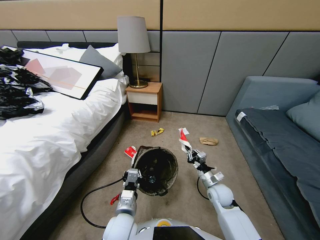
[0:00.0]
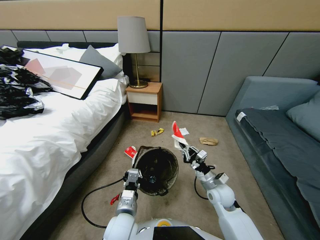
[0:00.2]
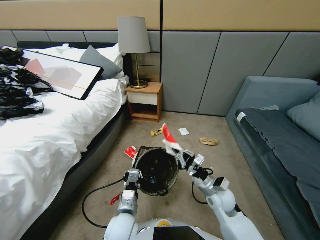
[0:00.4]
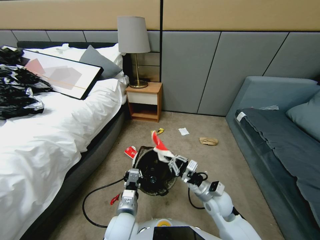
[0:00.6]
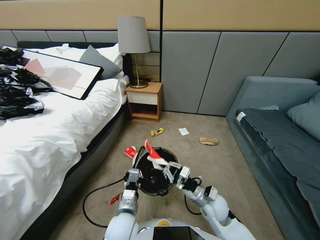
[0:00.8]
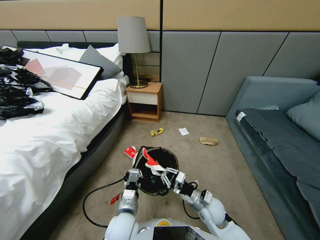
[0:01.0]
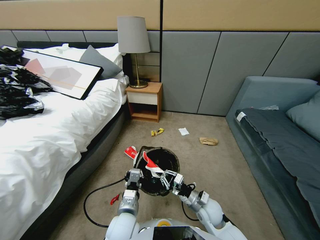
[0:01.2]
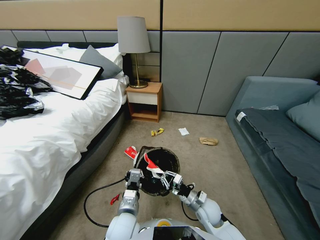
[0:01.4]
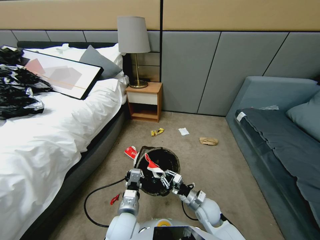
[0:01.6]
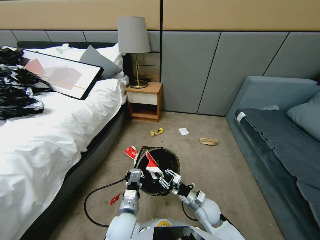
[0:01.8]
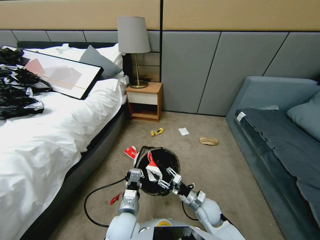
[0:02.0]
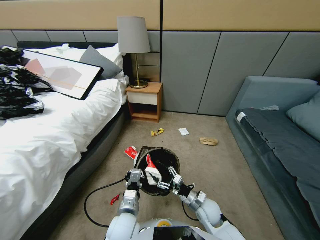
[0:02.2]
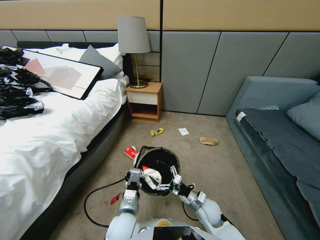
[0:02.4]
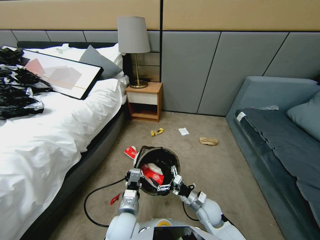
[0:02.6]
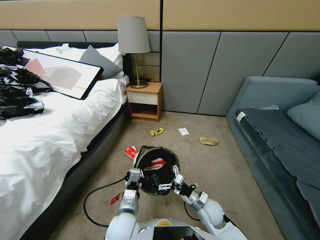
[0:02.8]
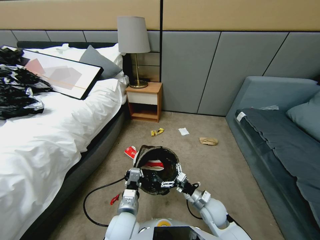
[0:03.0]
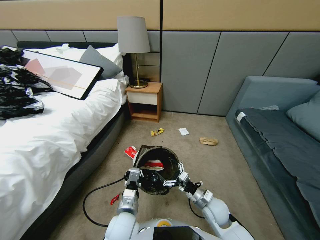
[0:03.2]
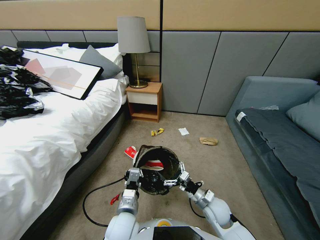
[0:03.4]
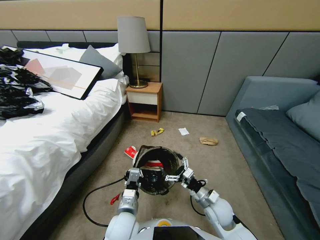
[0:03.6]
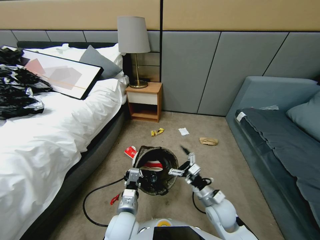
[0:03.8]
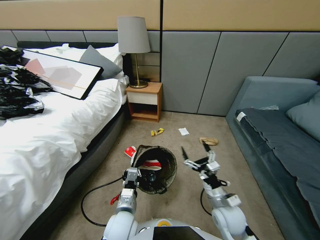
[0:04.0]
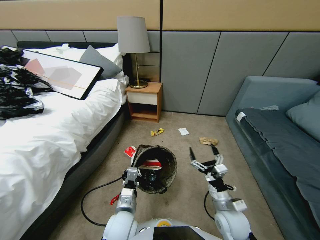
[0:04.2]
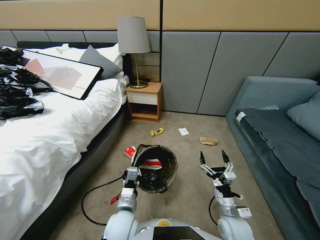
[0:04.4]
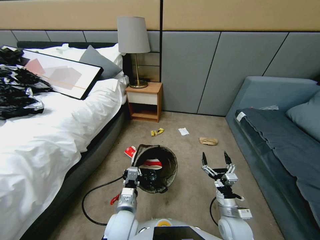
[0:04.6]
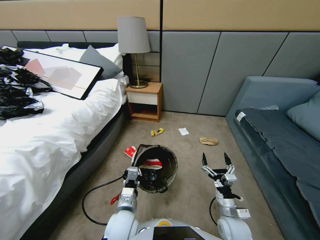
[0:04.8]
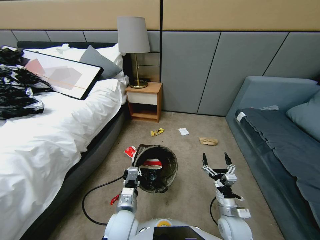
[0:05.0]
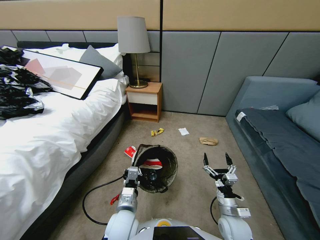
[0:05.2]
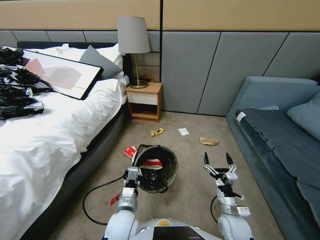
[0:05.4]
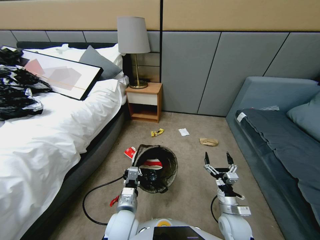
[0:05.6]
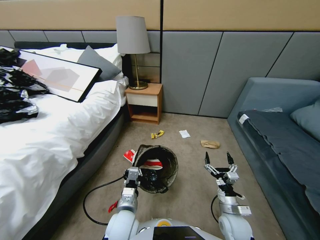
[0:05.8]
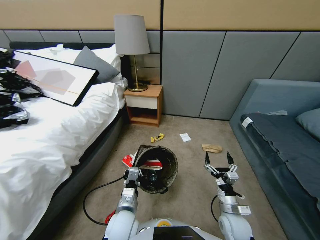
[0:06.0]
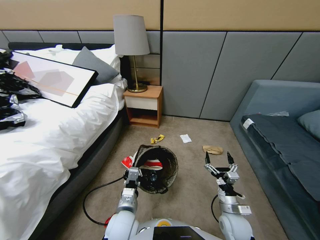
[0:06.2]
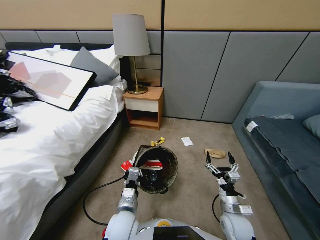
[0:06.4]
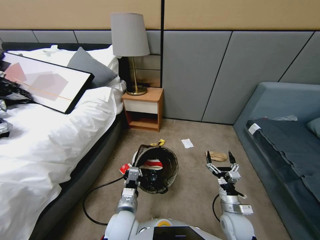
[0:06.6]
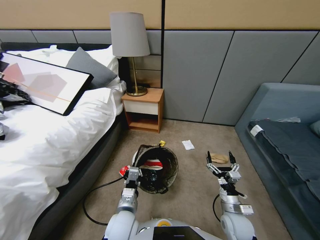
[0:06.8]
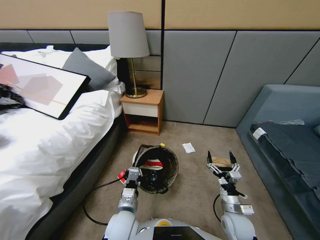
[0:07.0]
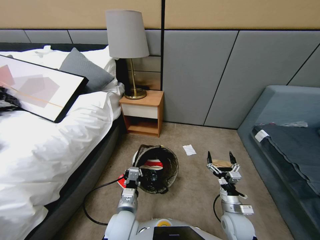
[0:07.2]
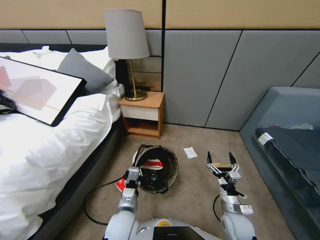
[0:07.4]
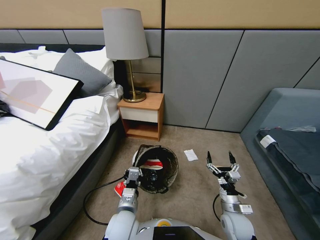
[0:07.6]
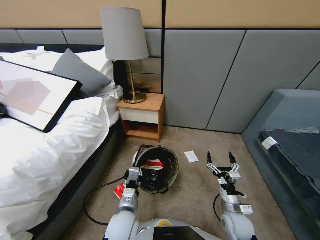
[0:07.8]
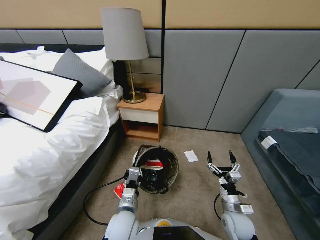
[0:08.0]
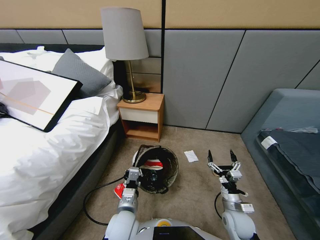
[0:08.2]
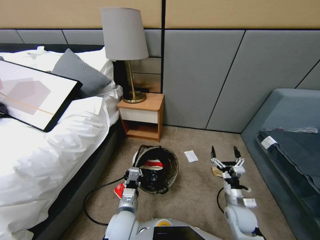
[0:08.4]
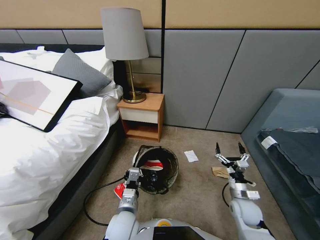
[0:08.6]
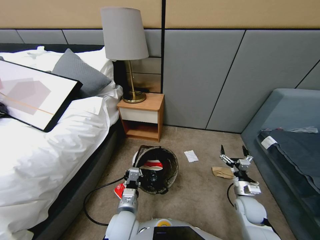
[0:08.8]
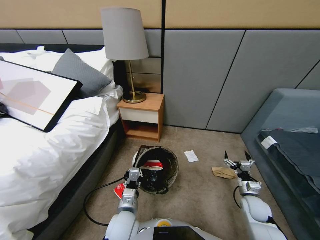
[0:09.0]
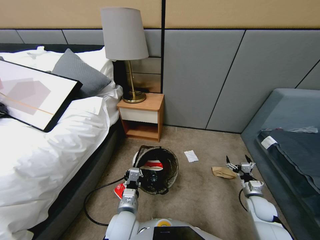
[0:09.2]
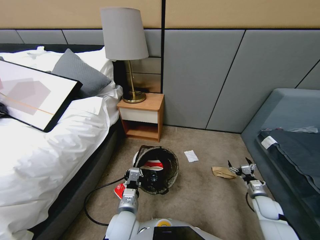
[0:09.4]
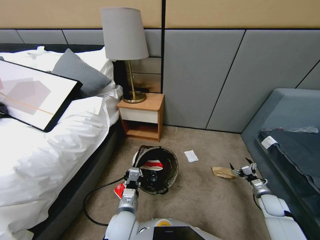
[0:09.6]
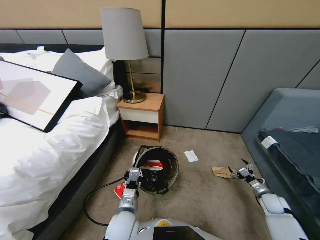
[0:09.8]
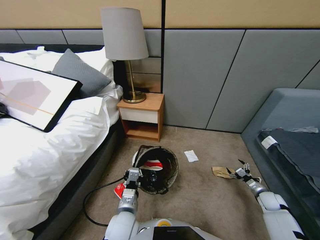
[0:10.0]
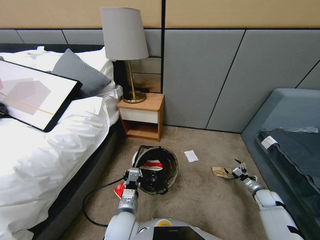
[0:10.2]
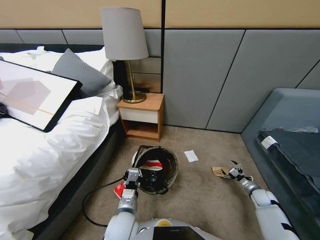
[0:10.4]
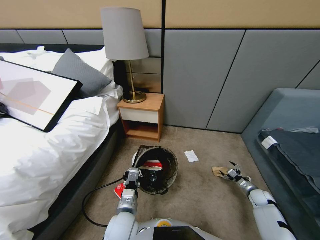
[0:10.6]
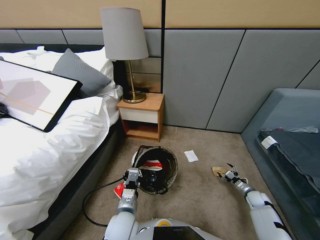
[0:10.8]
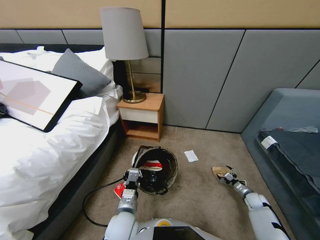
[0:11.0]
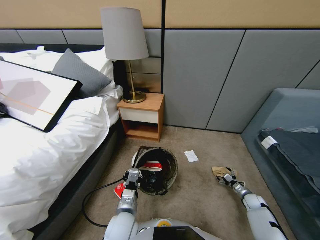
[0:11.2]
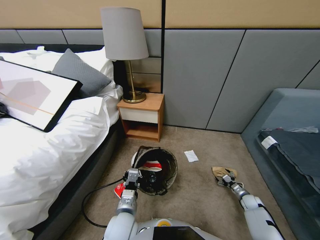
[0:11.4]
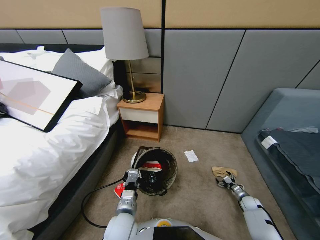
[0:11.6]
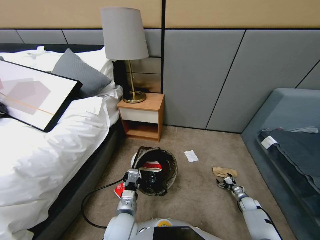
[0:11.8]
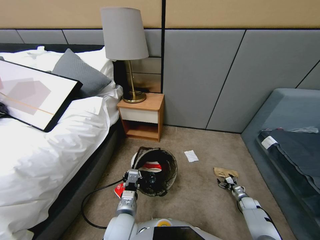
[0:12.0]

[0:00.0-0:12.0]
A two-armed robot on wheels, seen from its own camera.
Task of the whole recording: Pick up the trash bin, then pick up the garbage from the floor and place it into the trash bin.
0:00.0 to 0:01.6: The right gripper moves to the left, downward and backward, some 10 cm.
0:01.6 to 0:03.0: The right gripper opens.
0:03.0 to 0:04.4: The right gripper heads backward, covering approximately 5 cm.
0:07.6 to 0:09.0: The right gripper is displaced to the right by about 15 cm.
0:09.0 to 0:10.4: The right gripper moves to the right, downward and forward, approximately 15 cm.
0:10.4 to 0:12.0: The right gripper heads downward, covering about 10 cm.

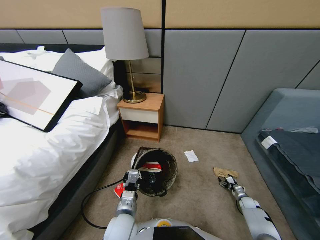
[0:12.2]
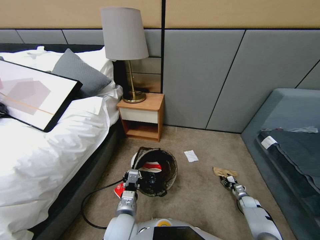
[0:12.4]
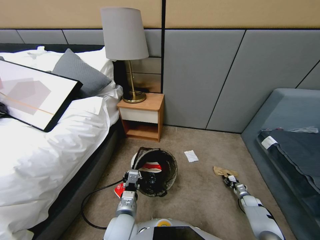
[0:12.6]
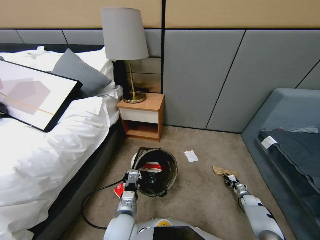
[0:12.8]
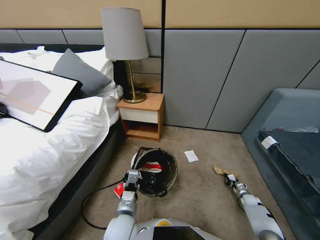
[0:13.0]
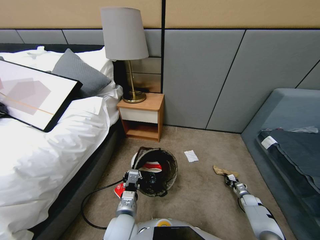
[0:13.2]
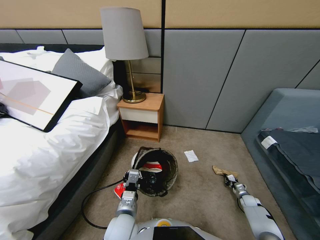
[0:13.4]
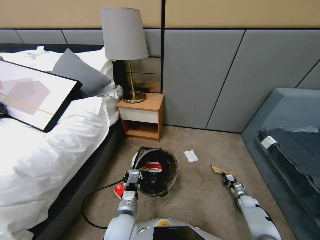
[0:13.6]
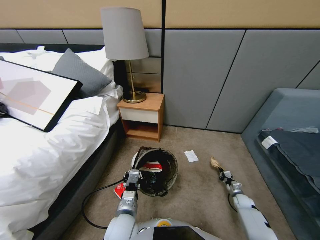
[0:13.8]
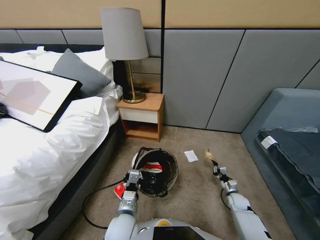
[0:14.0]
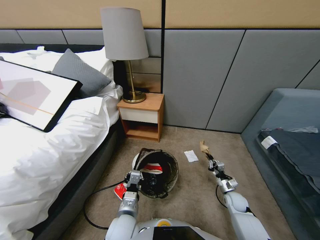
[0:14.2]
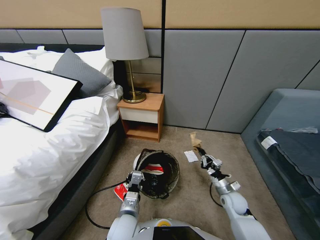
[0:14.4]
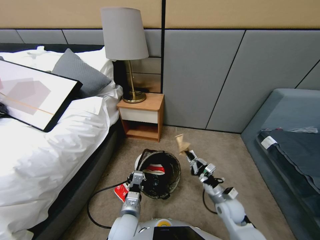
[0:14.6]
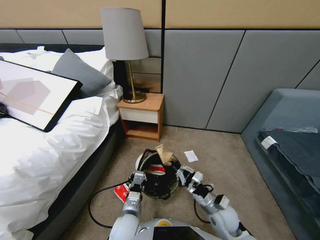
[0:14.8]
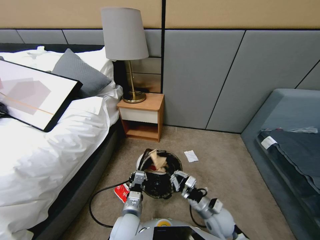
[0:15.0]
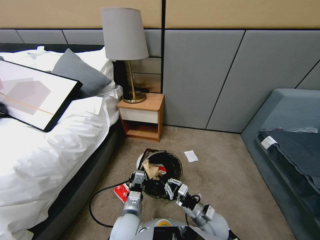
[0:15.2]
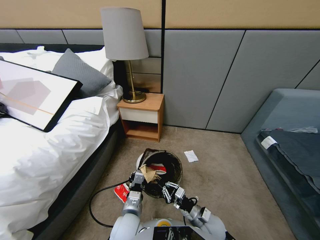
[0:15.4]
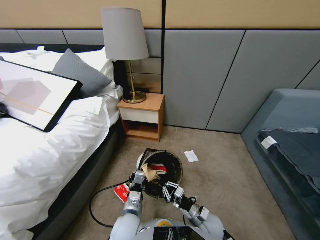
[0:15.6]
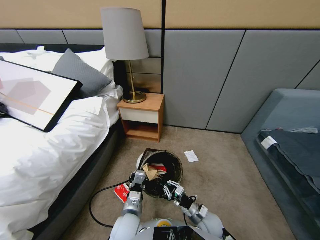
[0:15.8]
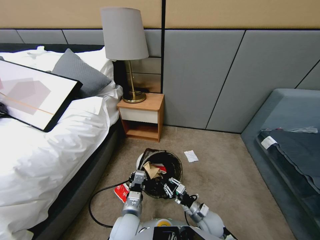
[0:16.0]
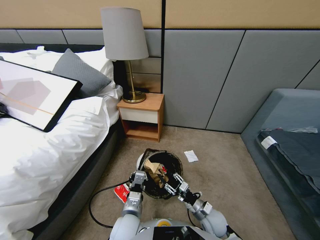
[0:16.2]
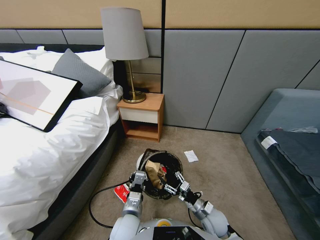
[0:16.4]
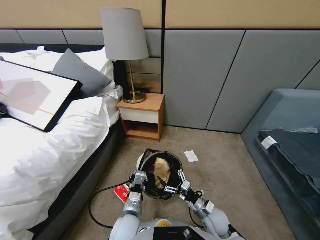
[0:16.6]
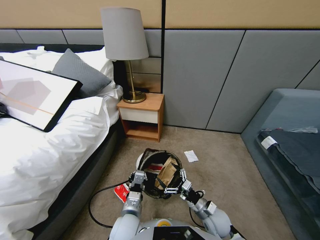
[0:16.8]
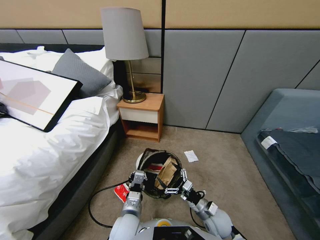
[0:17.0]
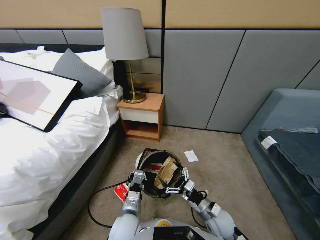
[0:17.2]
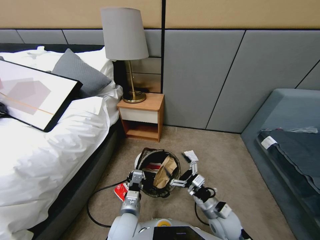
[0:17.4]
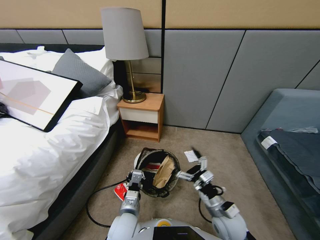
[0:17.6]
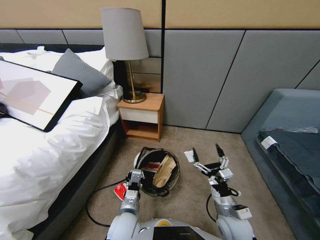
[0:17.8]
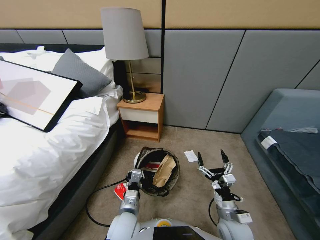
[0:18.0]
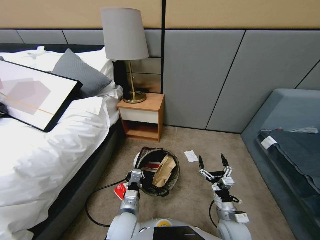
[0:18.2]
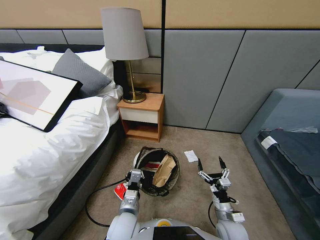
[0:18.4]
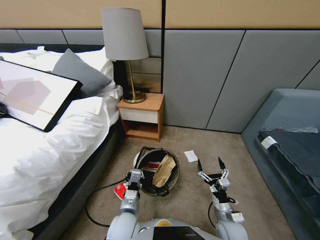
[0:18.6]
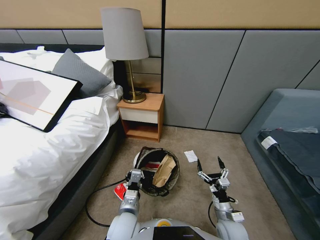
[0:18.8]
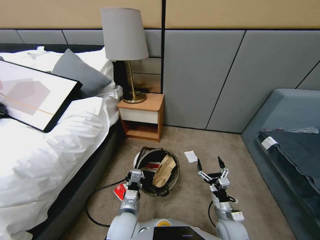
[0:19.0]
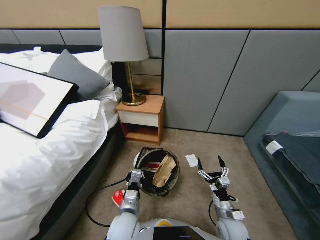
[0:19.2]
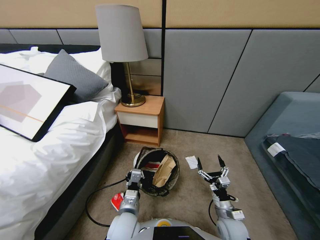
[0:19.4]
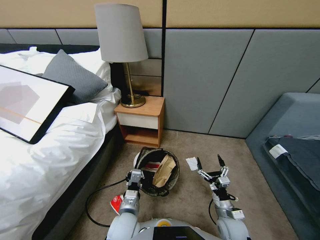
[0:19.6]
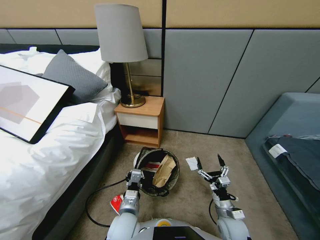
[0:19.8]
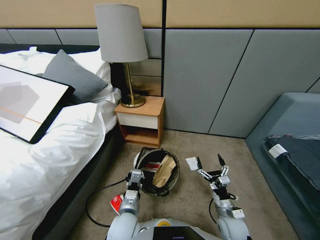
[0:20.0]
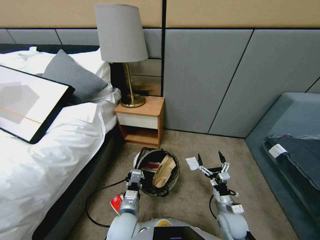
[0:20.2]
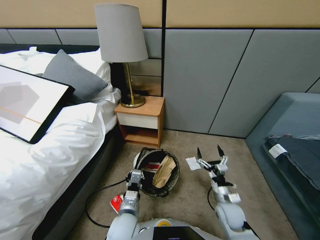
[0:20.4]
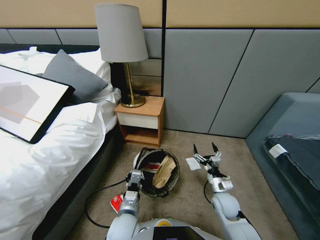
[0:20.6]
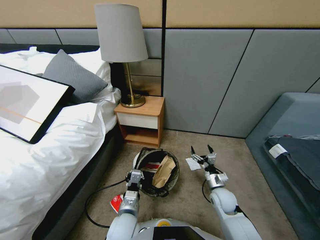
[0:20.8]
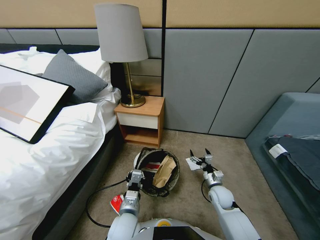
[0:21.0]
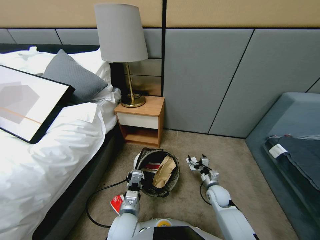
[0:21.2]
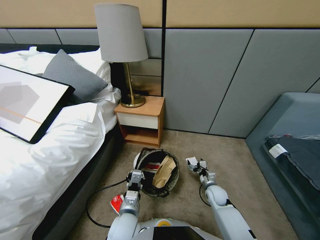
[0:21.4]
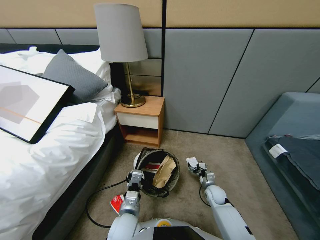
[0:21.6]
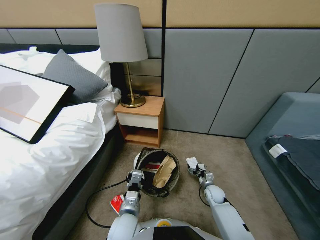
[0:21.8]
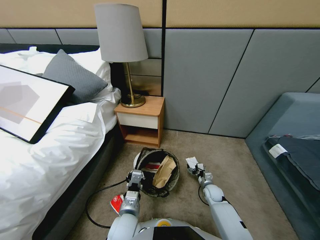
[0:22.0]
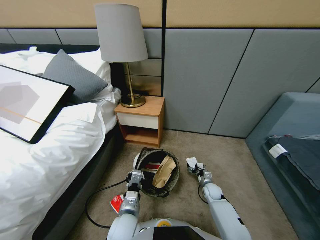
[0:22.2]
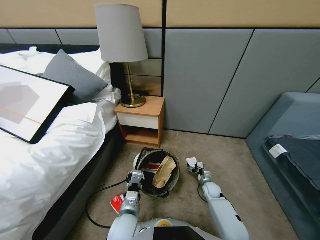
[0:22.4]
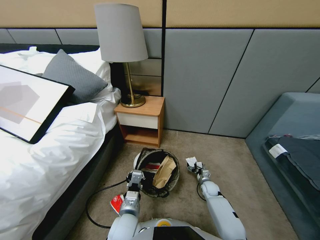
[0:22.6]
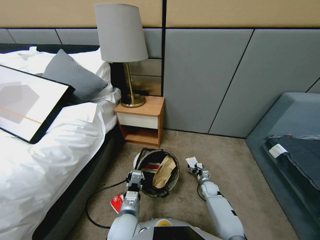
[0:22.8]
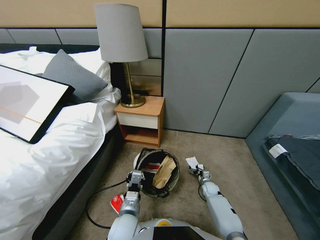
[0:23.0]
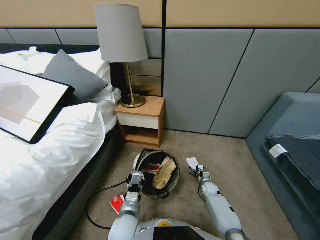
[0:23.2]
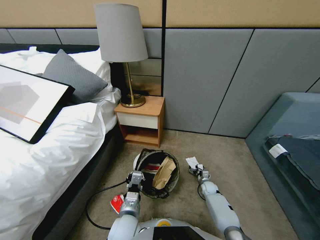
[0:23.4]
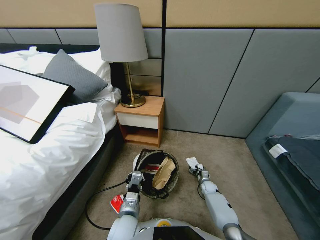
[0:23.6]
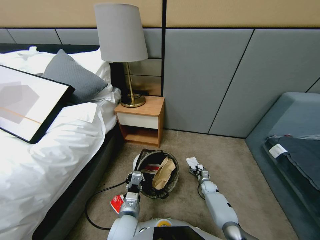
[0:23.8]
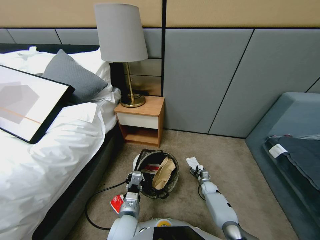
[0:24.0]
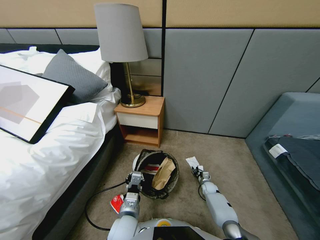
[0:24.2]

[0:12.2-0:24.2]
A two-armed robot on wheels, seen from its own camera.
Task of the whole recording: Pick up the trash bin, then pick up the garbage from the floor and place it into the trash bin.
0:12.2 to 0:13.8: The right gripper shifts approximately 10 cm to the left and upward, and closes its fingers.
0:13.8 to 0:15.2: The right gripper moves to the left, upward and backward, roughly 30 cm.
0:15.2 to 0:16.6: The right gripper opens up.
0:16.6 to 0:18.2: The right gripper moves some 10 cm upward and comes back.
0:18.2 to 0:19.8: The grippers stay close to where they were, moving slightly.
0:19.8 to 0:21.2: The right gripper moves forward, approximately 10 cm.
0:21.2 to 0:22.6: The right gripper is displaced downward and forward by approximately 10 cm.
0:22.6 to 0:24.2: The right gripper heads downward, covering some 5 cm, and closes its fingers.
